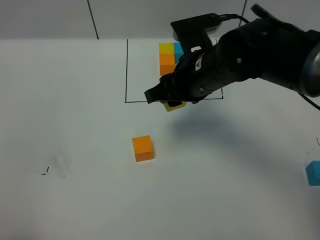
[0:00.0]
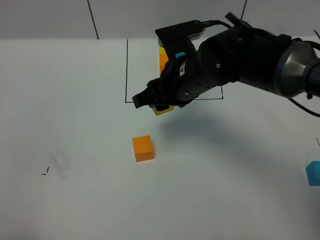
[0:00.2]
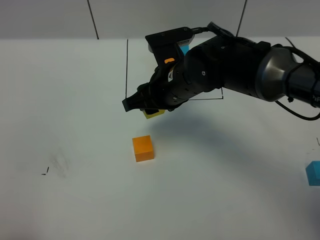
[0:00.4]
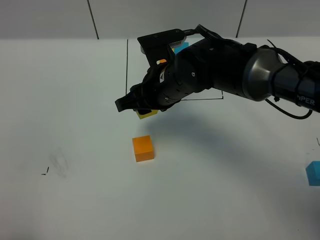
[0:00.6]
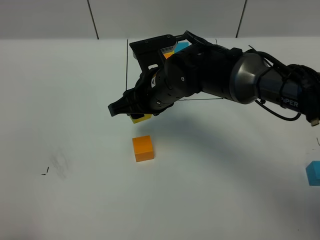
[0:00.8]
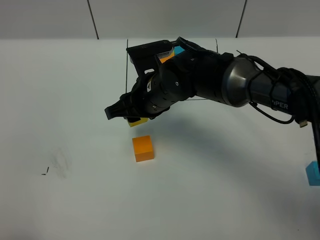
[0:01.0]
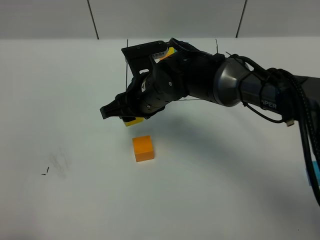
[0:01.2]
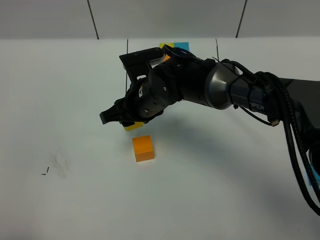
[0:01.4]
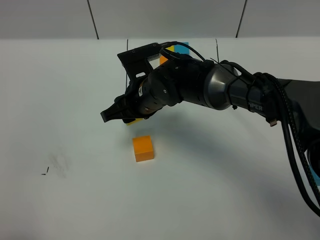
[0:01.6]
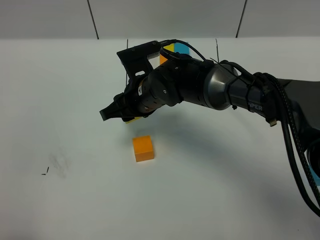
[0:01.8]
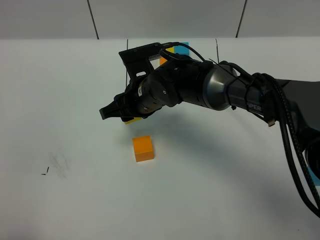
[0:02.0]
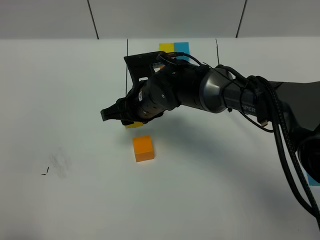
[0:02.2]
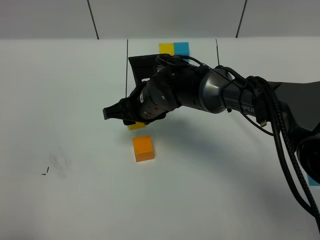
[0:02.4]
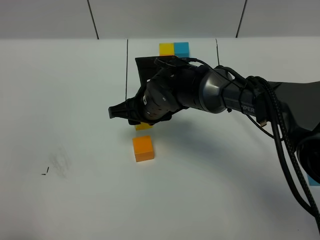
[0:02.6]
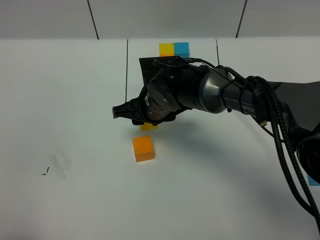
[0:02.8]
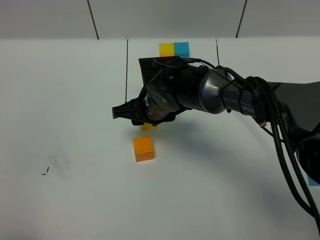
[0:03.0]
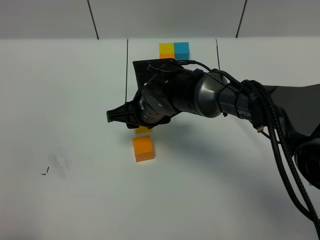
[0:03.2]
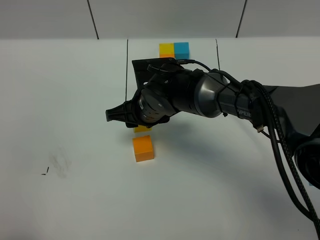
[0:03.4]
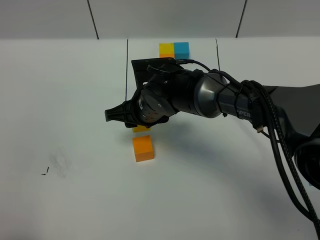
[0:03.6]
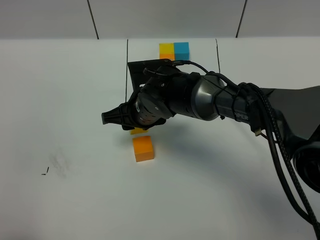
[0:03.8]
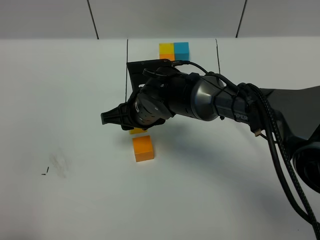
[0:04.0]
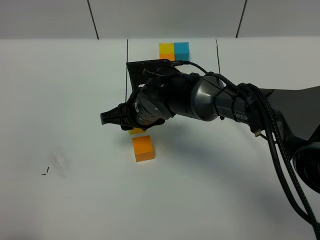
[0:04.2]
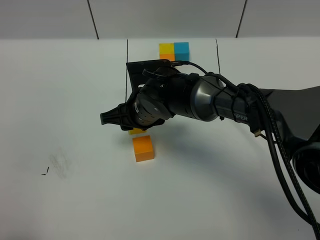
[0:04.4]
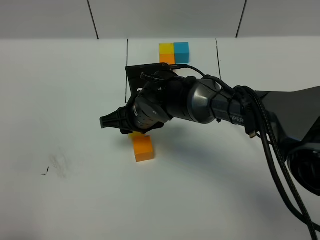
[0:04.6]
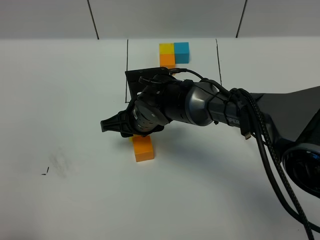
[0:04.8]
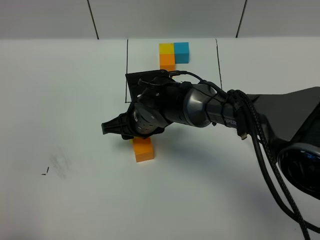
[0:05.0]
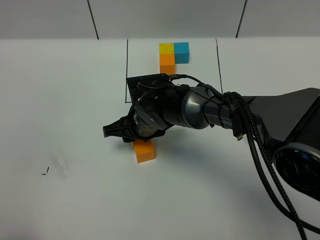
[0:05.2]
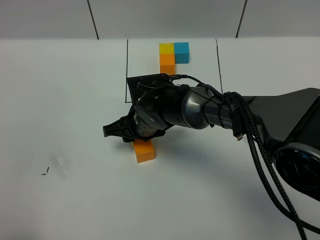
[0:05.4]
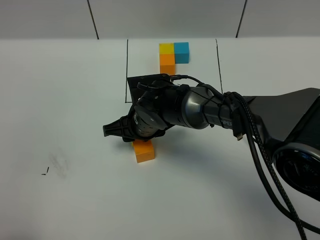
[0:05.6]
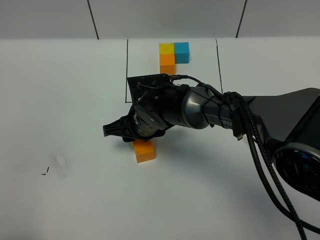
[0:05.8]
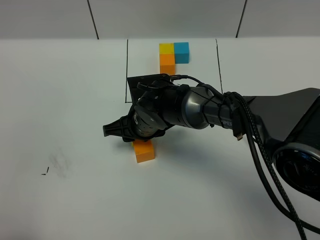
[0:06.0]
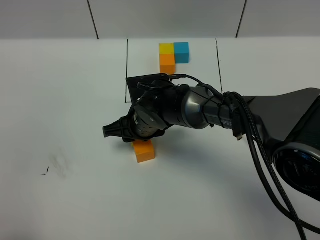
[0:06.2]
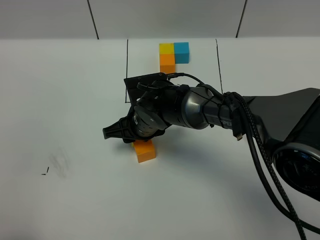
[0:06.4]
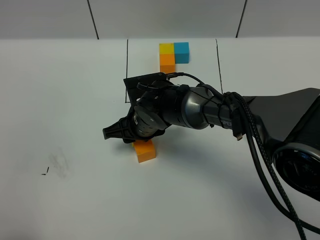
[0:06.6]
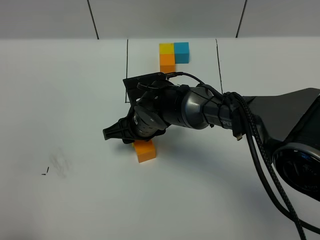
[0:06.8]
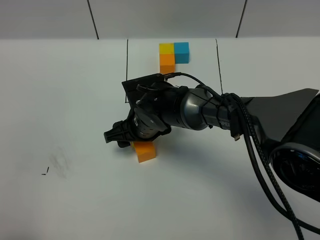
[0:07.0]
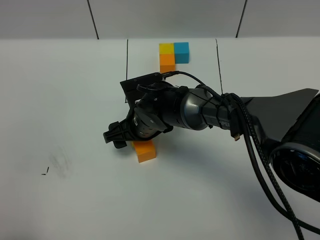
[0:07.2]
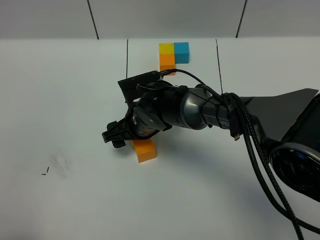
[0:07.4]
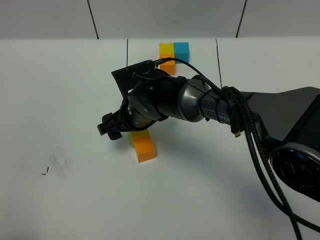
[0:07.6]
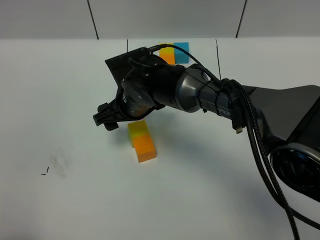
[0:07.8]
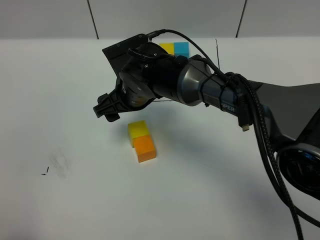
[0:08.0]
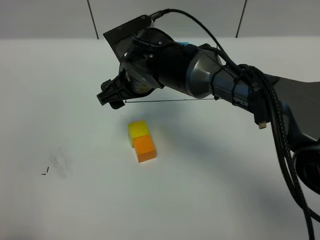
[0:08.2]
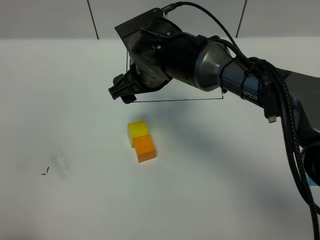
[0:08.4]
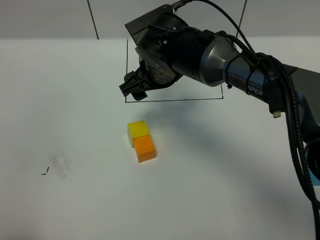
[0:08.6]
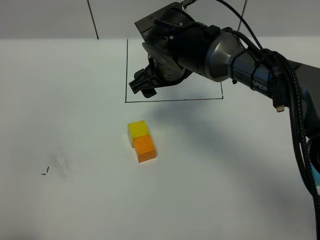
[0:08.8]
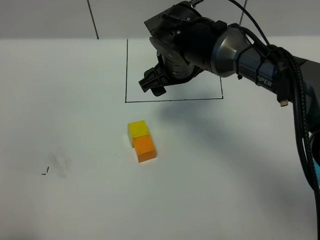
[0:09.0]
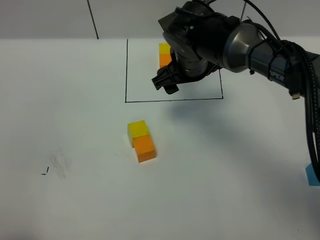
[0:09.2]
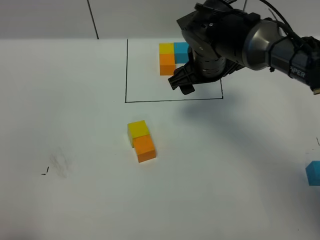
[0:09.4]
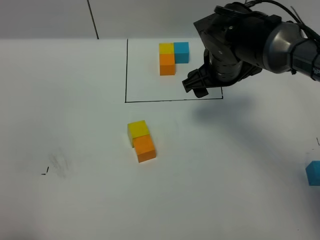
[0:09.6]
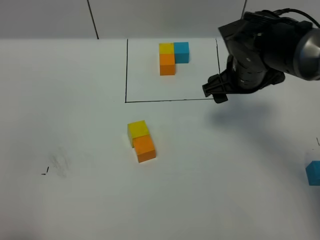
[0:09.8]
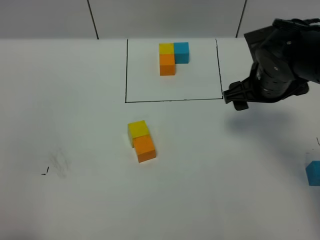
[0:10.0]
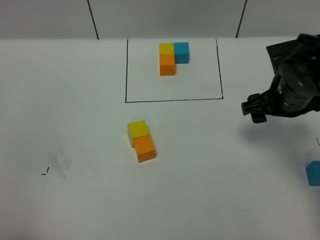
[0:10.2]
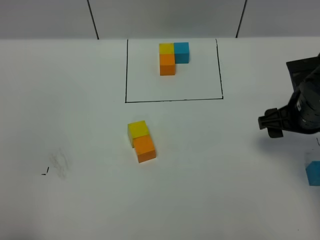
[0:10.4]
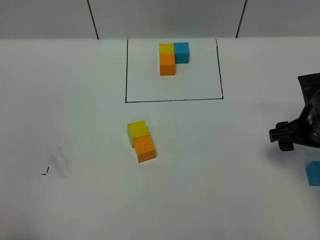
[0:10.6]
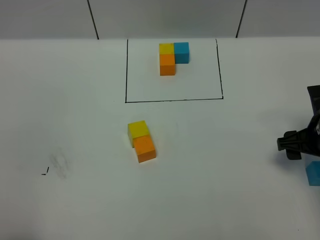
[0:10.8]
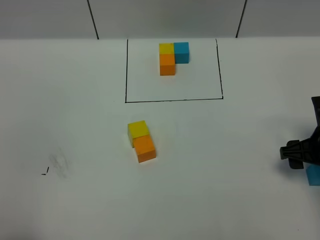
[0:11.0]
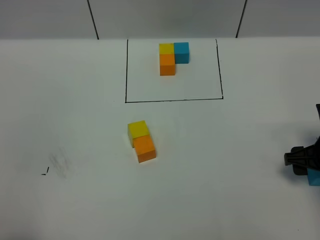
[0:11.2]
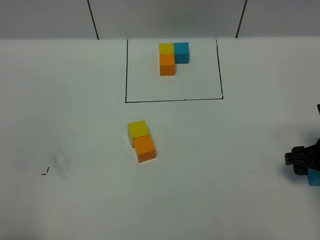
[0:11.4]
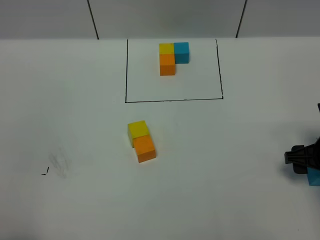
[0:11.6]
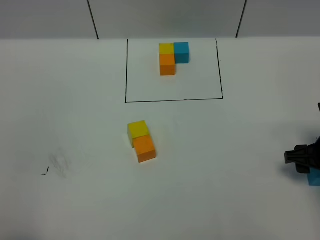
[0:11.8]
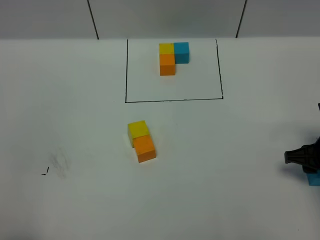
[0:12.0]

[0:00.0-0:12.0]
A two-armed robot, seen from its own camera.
Task of the whole recording: According to the building block template in front, assemble the scattered blocks together.
Step, 0:00.0 to 0:07.8: Put the yellow cube on the behind of the orange cube.
0:00.0 to 0:01.6: The right gripper heads to the left and downward, covering approximately 10 cm.
0:03.0 to 0:06.0: There are only small adjustments of the grippers.
0:06.0 to 0:07.6: The right gripper opens its fingers.
0:07.6 to 0:09.0: The right gripper shifts about 10 cm upward and to the right.
0:09.0 to 0:10.4: The right gripper travels to the right and backward by about 25 cm.
0:10.4 to 0:12.0: The right gripper shifts by approximately 10 cm, and closes.

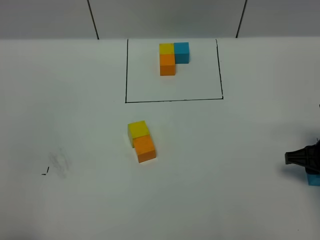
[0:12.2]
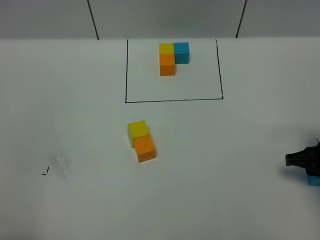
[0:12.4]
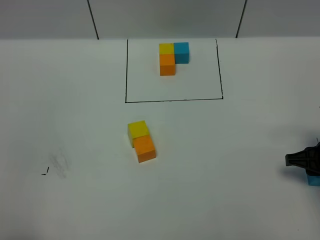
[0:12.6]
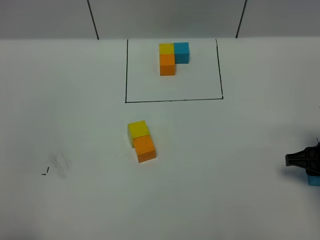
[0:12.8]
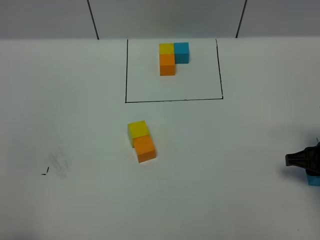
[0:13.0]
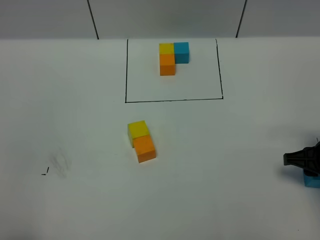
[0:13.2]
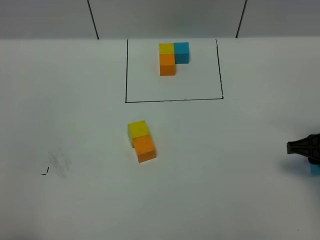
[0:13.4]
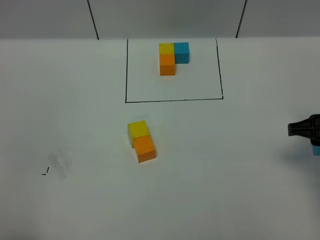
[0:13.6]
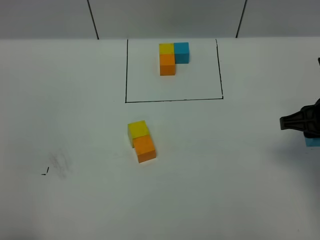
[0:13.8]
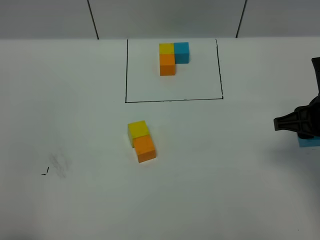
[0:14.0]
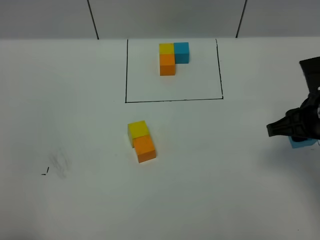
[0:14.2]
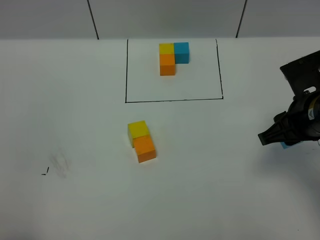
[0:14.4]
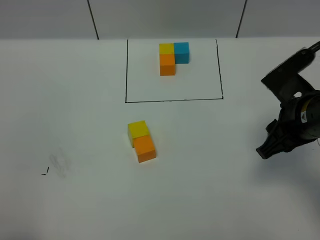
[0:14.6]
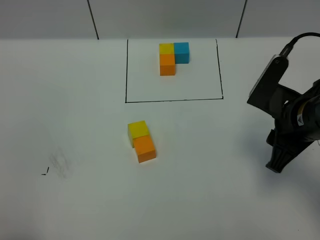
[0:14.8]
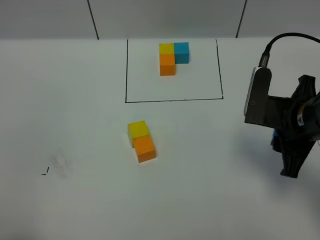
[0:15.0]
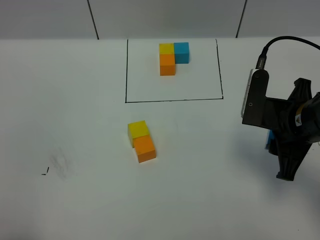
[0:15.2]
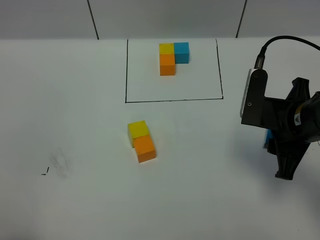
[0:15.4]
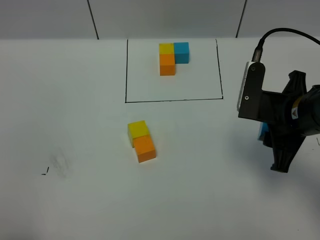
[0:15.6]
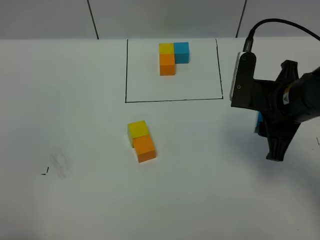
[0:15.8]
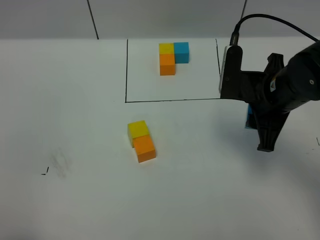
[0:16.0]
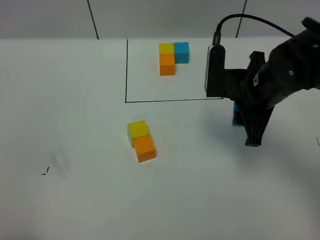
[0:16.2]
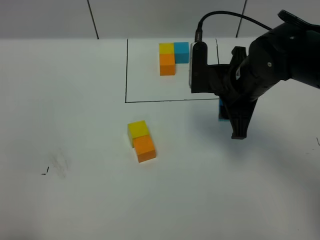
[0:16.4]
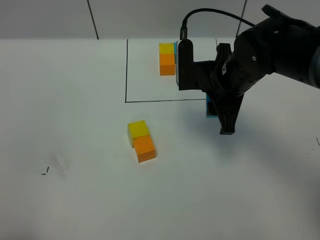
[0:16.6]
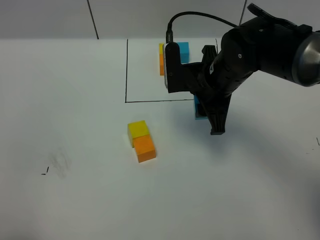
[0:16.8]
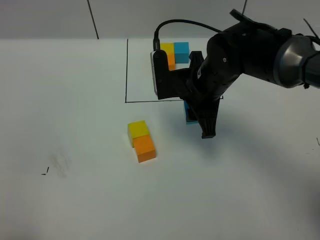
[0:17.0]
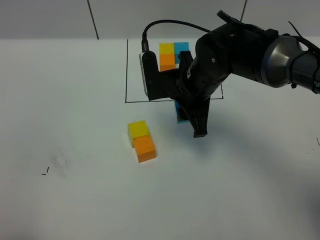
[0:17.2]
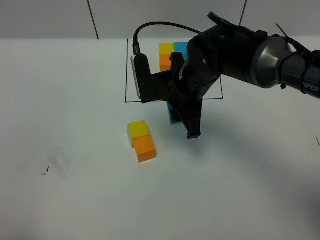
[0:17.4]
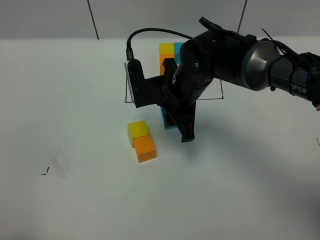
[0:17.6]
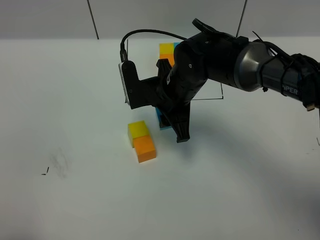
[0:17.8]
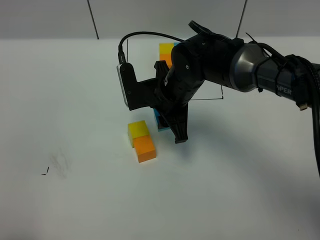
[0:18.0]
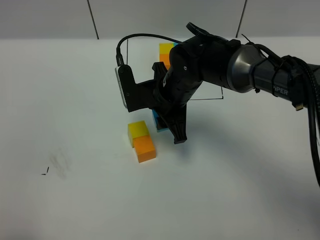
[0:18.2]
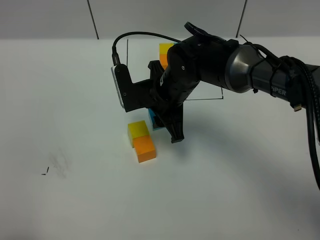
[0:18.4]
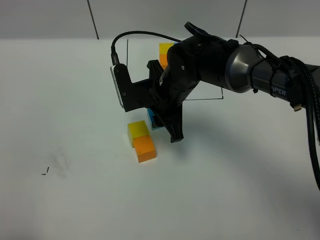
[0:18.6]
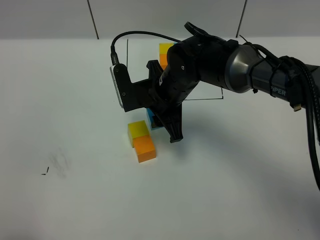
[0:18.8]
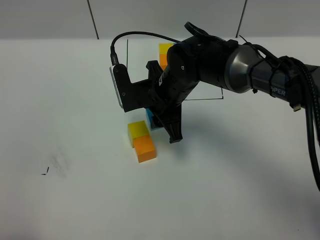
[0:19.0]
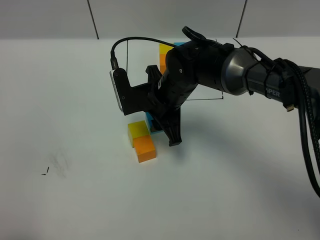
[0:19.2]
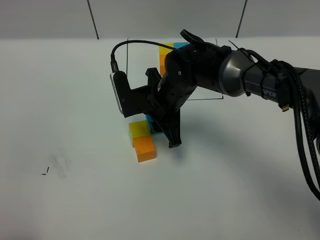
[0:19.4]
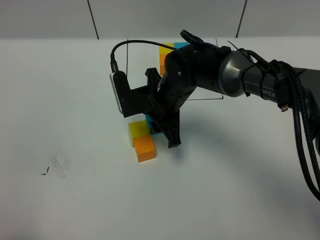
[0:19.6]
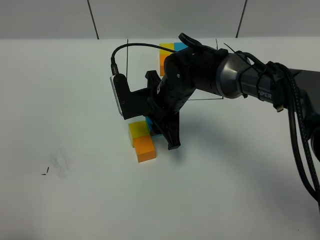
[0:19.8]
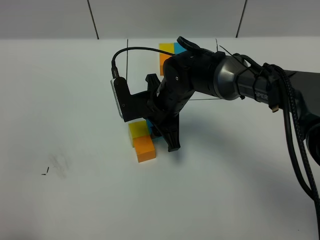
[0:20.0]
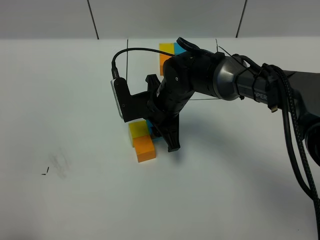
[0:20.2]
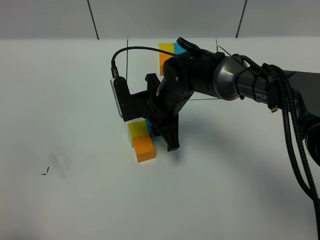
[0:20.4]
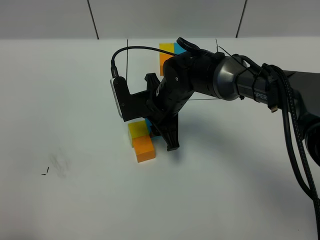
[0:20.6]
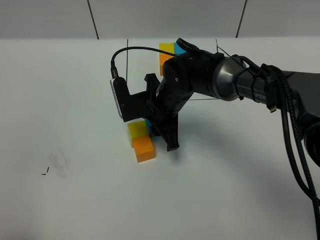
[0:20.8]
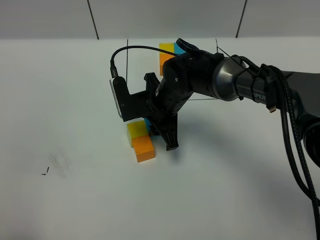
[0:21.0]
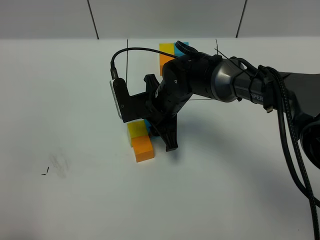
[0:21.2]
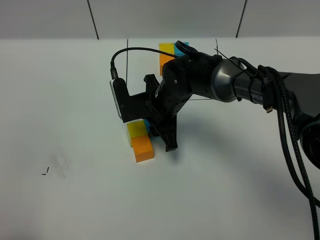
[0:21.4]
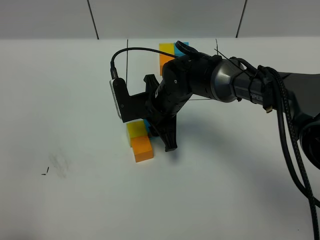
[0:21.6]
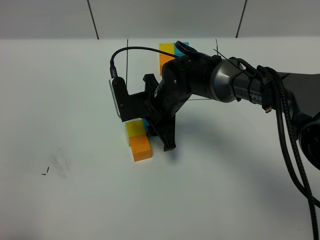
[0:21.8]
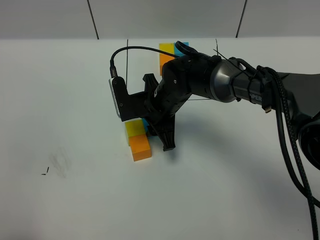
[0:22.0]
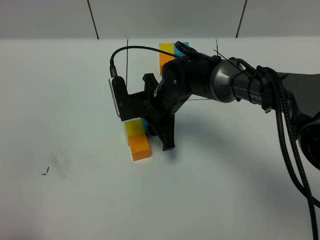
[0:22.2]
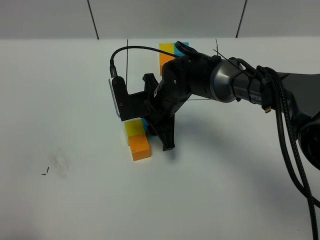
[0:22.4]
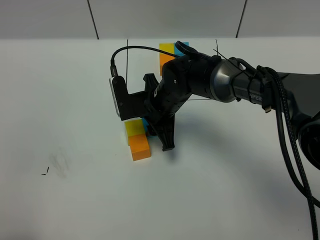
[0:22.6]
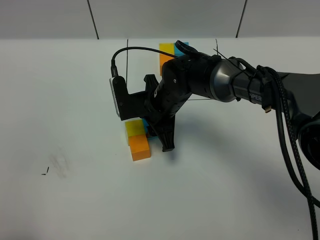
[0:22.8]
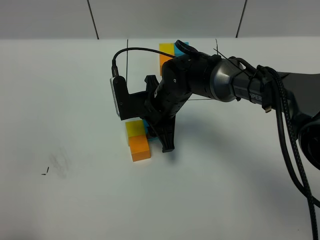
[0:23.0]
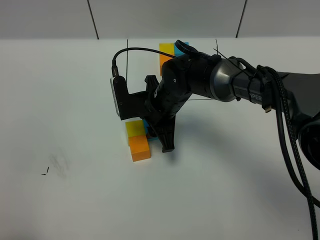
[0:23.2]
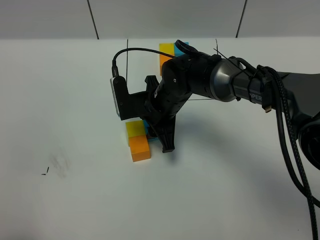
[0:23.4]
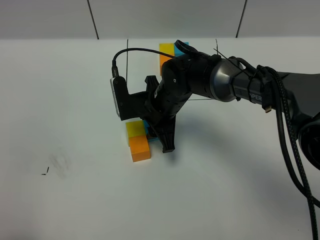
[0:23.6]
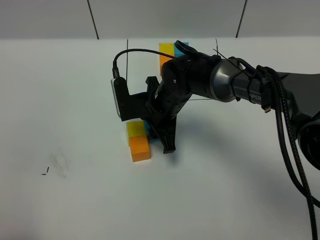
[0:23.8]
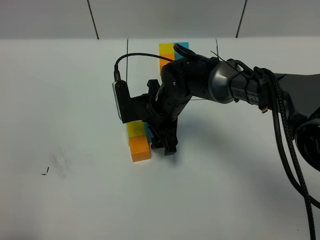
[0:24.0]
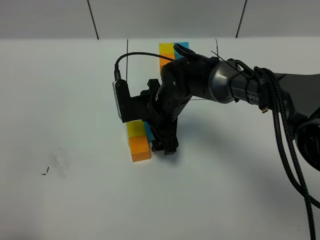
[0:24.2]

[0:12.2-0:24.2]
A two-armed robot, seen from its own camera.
Task of the whole recording: According to the building block template in front, assemble the scattered blocks together.
0:12.2 to 0:13.8: The right gripper goes some 10 cm upward.
0:13.8 to 0:15.2: The right gripper travels to the left by about 5 cm.
0:15.2 to 0:16.6: The right gripper goes approximately 15 cm to the left and forward.
0:16.6 to 0:18.2: The right gripper travels to the left by some 10 cm.
0:18.2 to 0:21.2: The grippers make only small movements.
0:21.2 to 0:22.6: Neither gripper changes place.
0:22.6 to 0:24.2: The right gripper opens.
